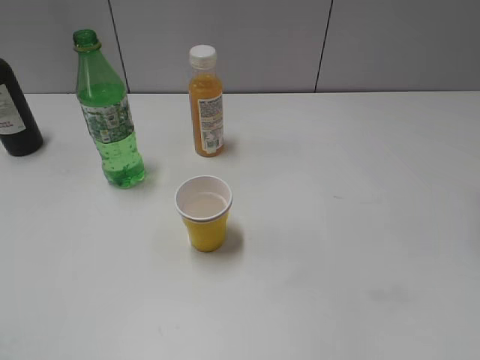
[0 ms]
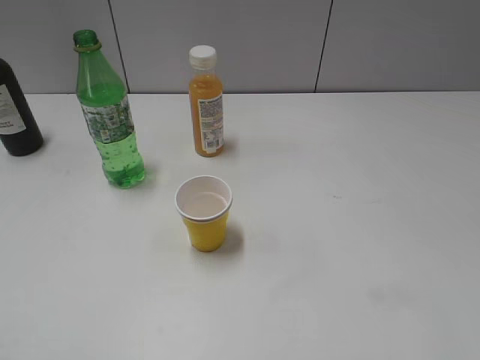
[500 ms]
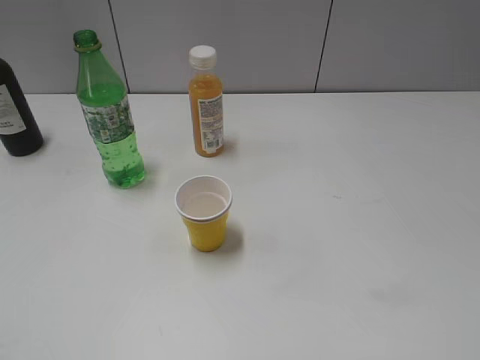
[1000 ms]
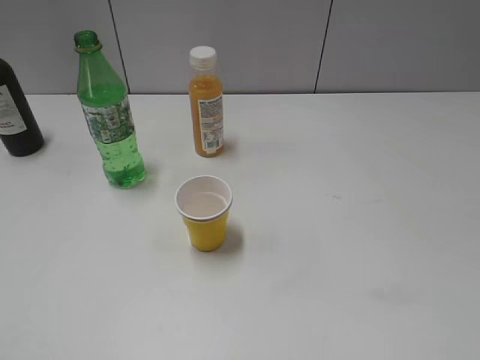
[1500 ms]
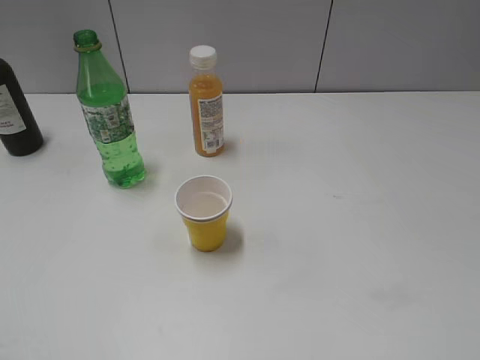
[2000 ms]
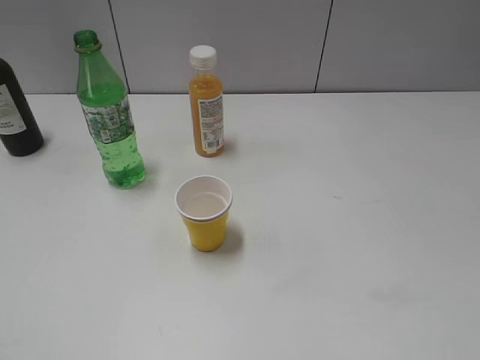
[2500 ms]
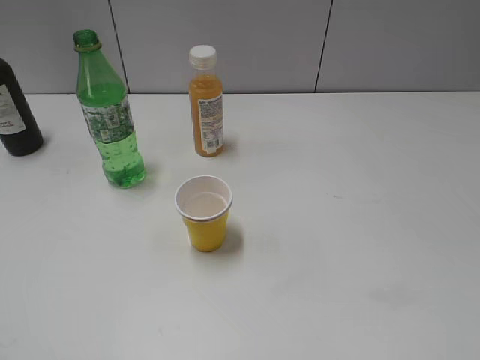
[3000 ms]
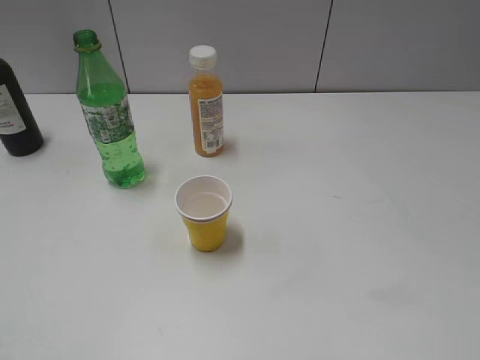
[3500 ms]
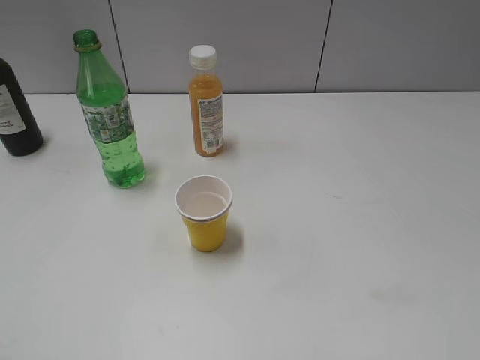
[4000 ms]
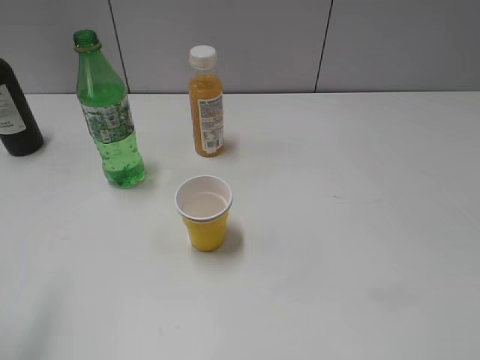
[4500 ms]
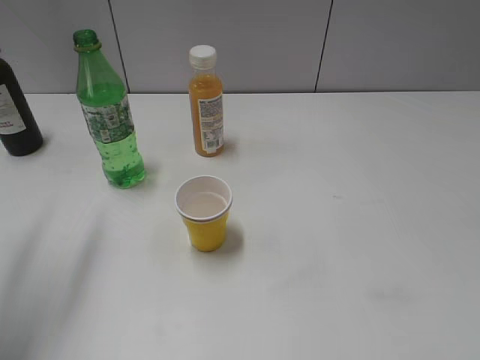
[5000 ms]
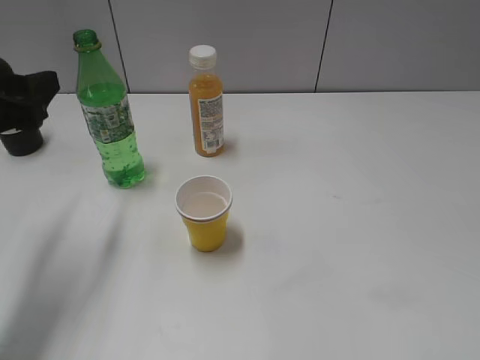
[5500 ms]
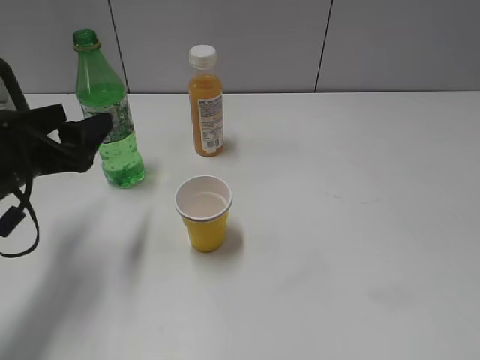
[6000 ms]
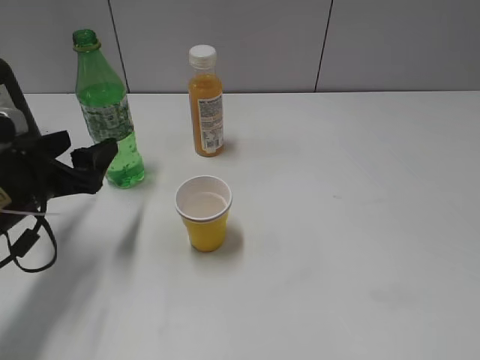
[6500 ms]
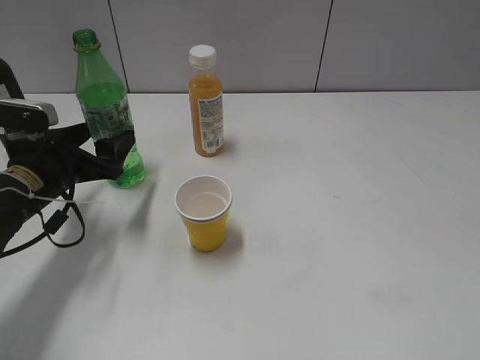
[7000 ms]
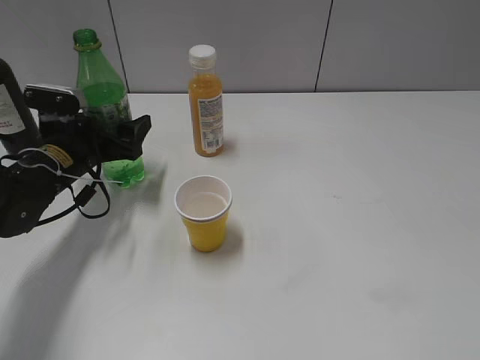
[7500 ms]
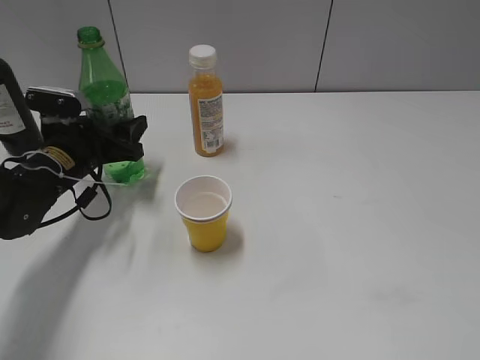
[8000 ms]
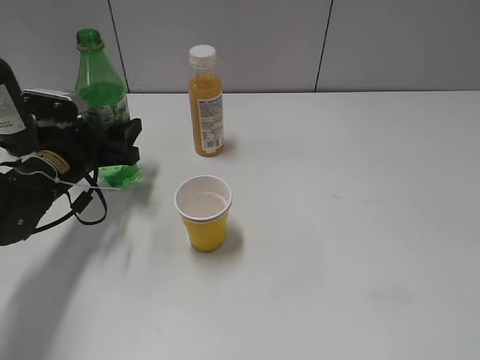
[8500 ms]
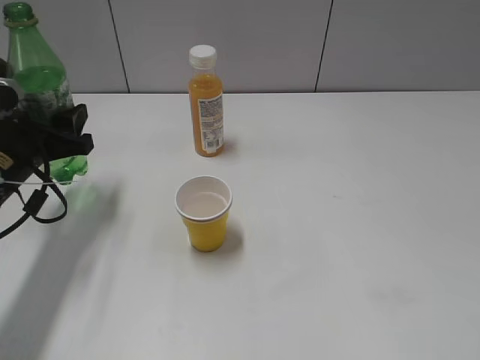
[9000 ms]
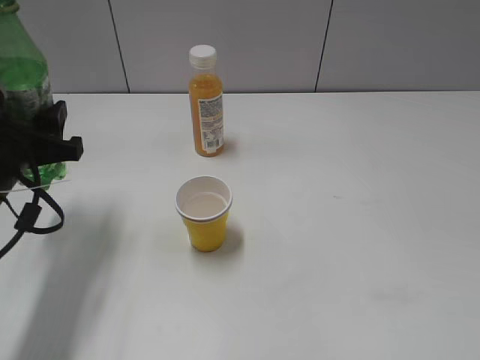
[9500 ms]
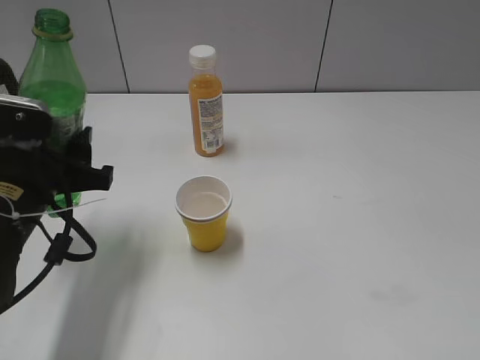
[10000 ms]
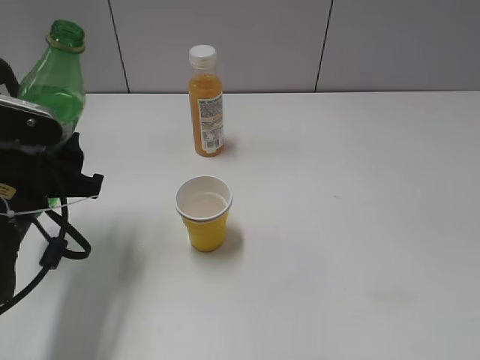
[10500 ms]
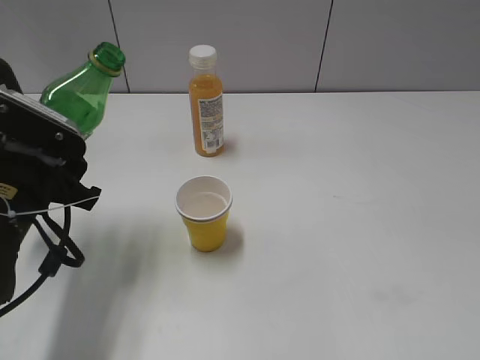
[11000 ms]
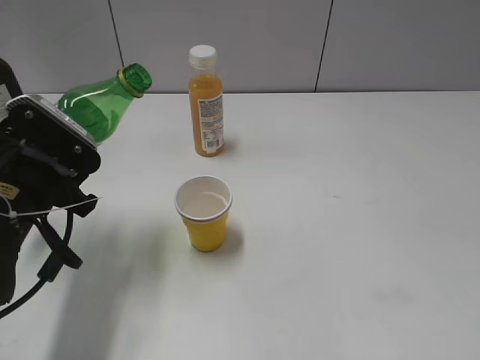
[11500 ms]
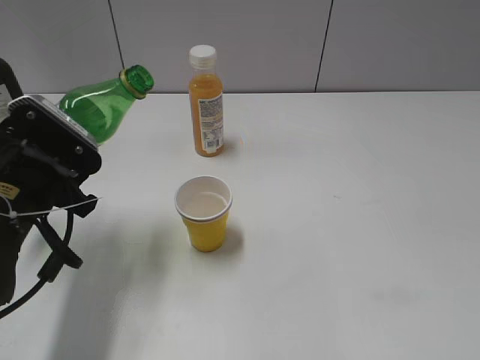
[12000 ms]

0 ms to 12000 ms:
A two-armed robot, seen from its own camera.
Step, 0 ms to 8000 ms: Grasp the bottle with sprite with left gripper.
4000 ms to 6000 ms: The left gripper is displaced forward and downward by roughly 30 cm.
6000 ms to 8000 ms: The left gripper heads forward and downward, covering some 15 cm.
8000 ms to 10000 ms: The left gripper is displaced backward and upward by some 15 cm.

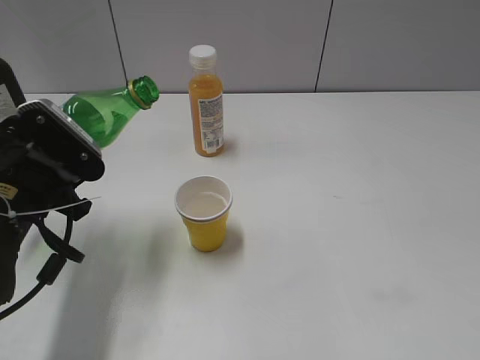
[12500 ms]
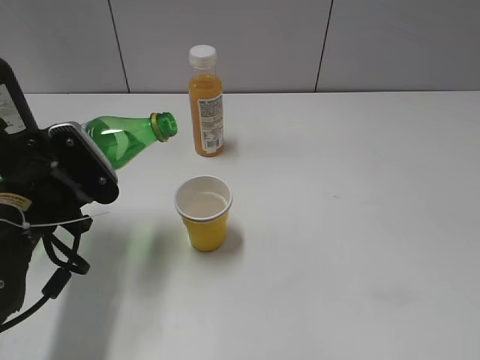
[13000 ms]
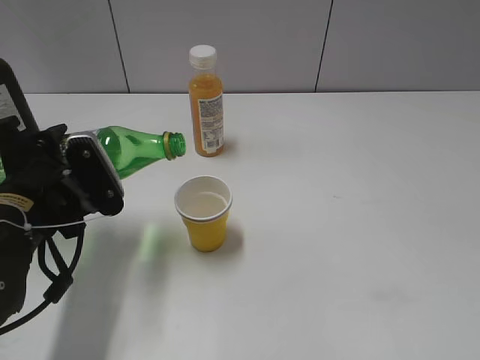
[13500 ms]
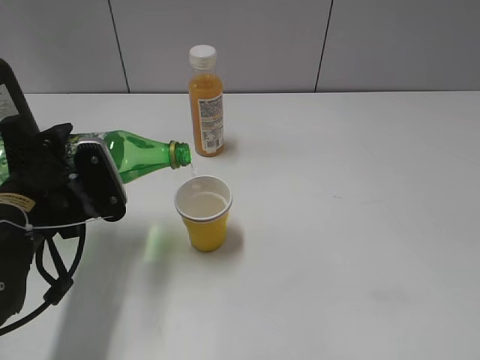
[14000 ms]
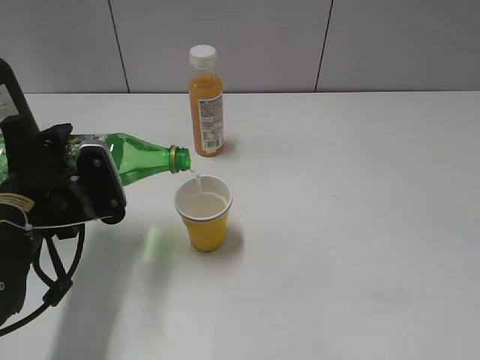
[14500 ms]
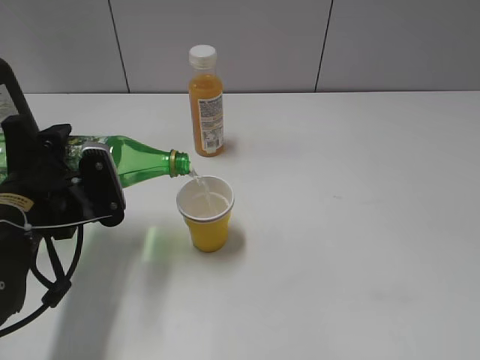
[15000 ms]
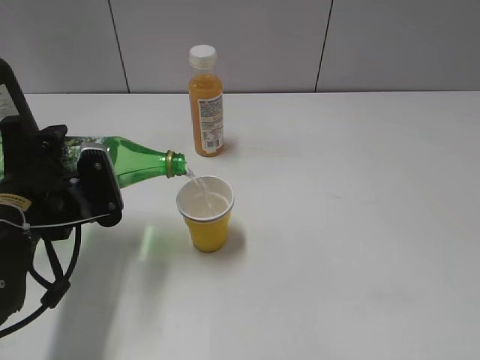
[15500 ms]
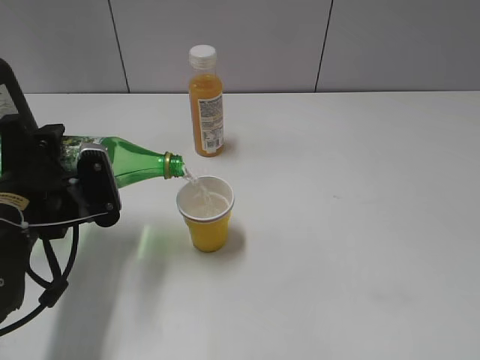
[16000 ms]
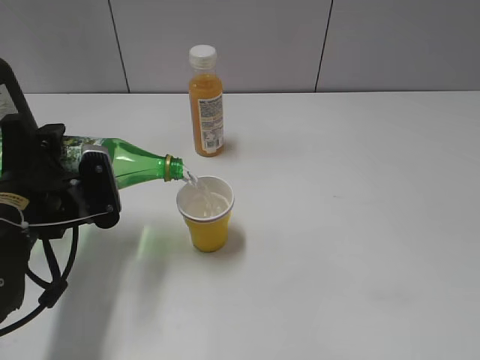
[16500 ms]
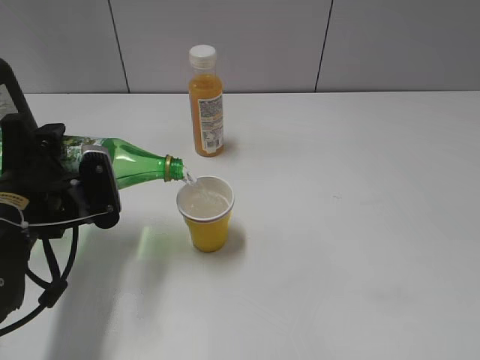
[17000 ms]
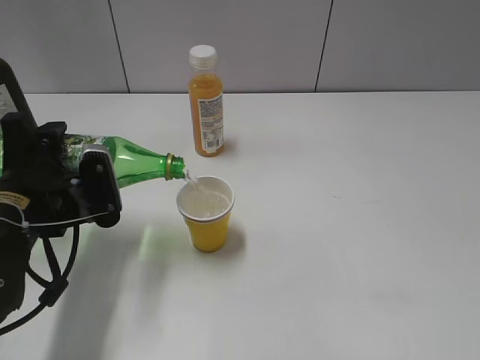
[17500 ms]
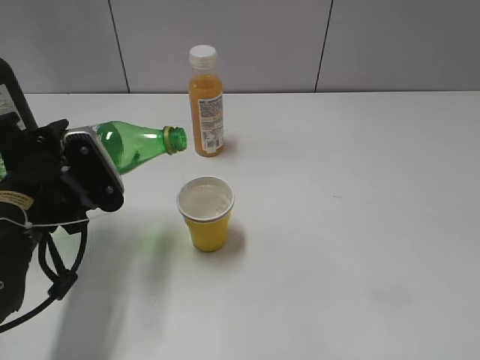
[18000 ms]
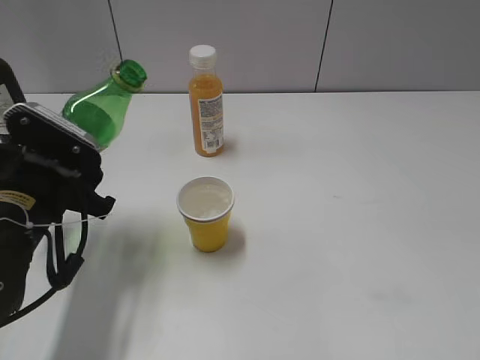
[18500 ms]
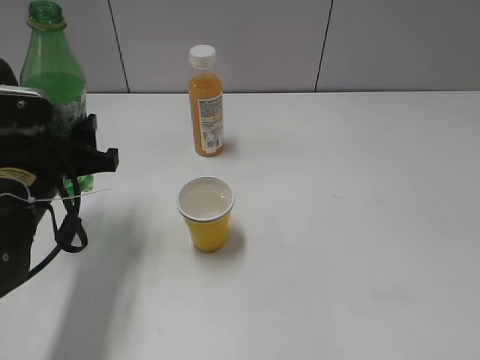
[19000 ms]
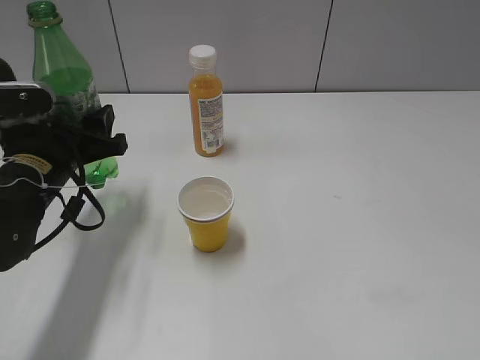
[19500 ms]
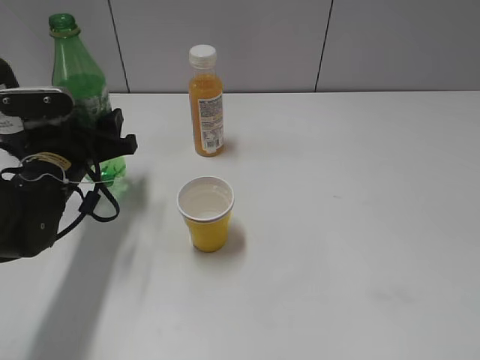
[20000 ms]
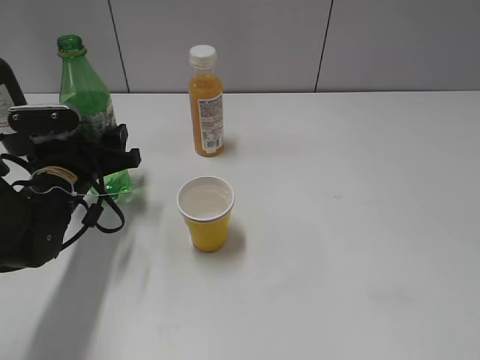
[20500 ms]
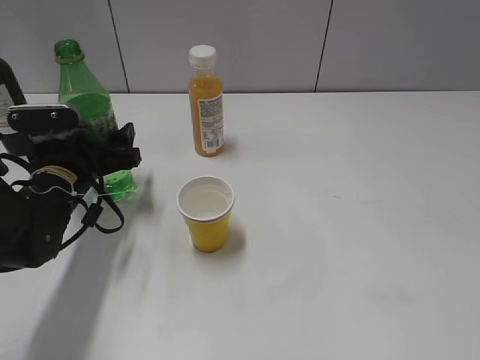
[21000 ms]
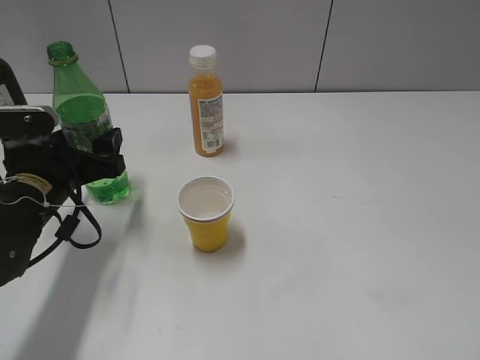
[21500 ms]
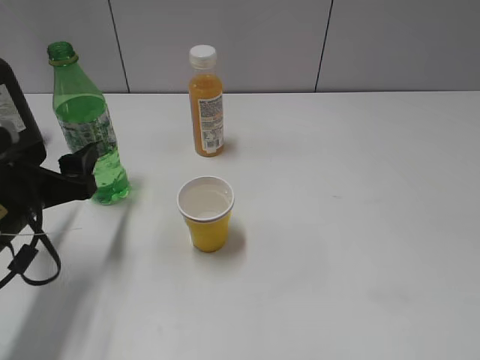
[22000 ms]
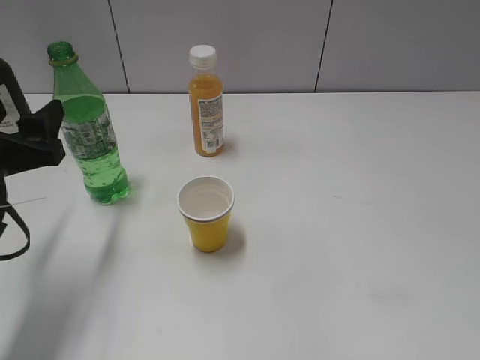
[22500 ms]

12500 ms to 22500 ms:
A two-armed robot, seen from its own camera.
Step, 12500 ms to 18000 ms: Pour the sprite from bottle to cup with left gripper.
Step, 18500 ms to 21500 ms: Place the sprite bottle on the table with left gripper.
14500 ms to 16500 ms: The grippers make only small movements.
18500 ms to 20500 ms: The left gripper shifts approximately 10 cm forward and downward.
20500 ms to 22500 ms: The left gripper heads backward and upward, covering about 15 cm, and opens.

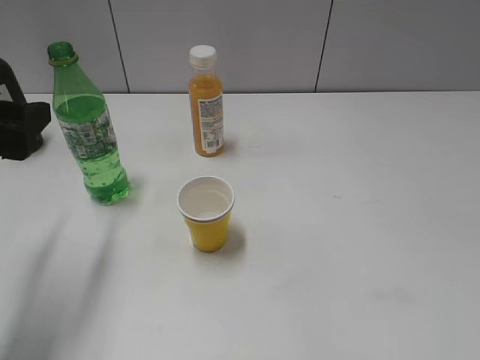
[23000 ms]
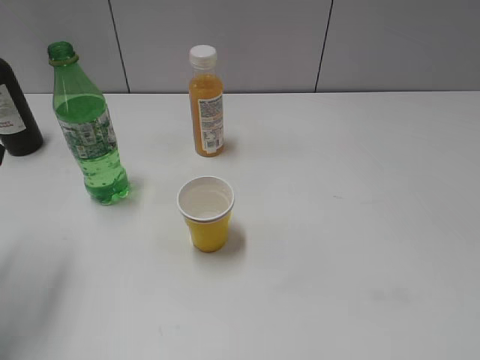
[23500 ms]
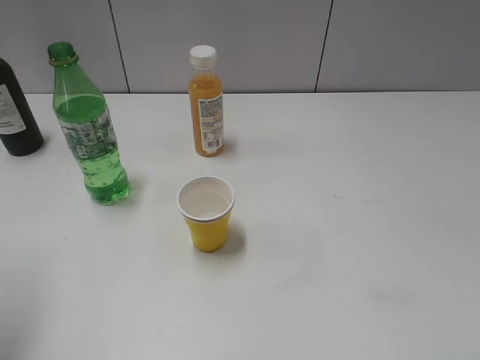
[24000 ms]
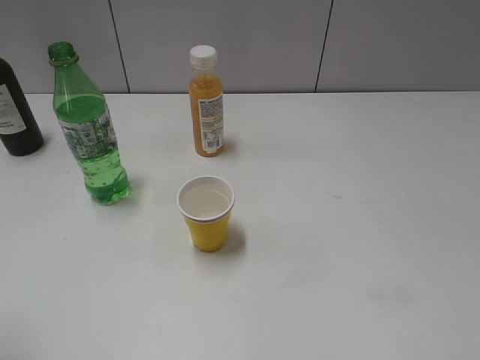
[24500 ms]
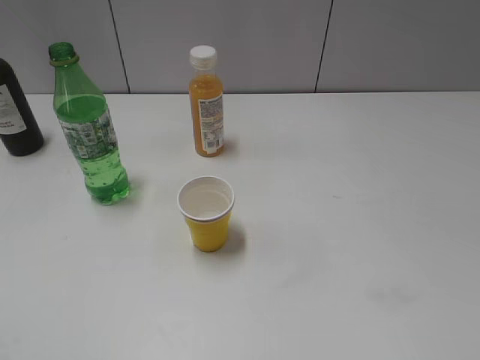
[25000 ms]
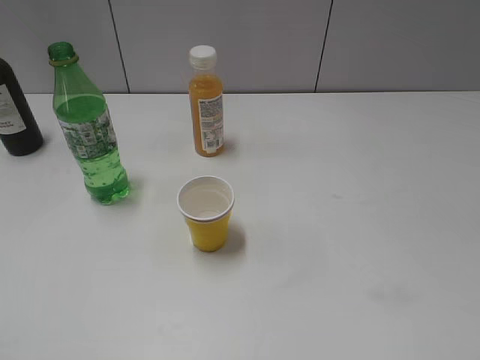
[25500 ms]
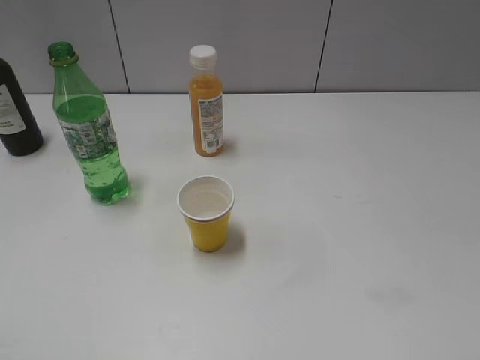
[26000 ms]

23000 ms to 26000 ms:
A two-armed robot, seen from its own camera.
23000 ms to 24500 ms: The left gripper goes about 15 cm backward and upward.

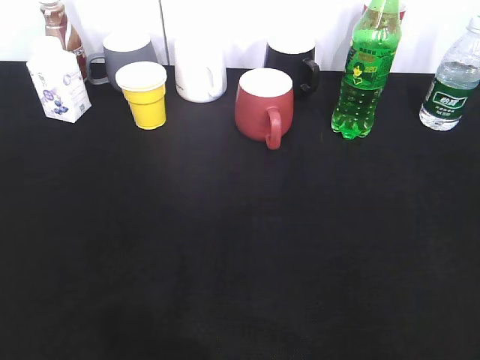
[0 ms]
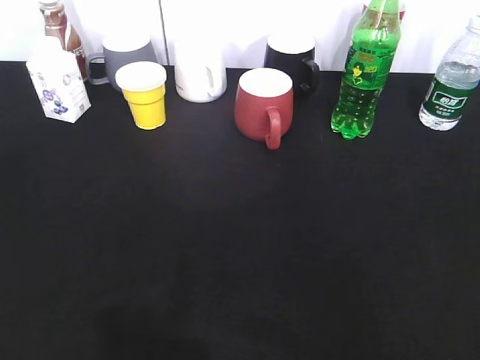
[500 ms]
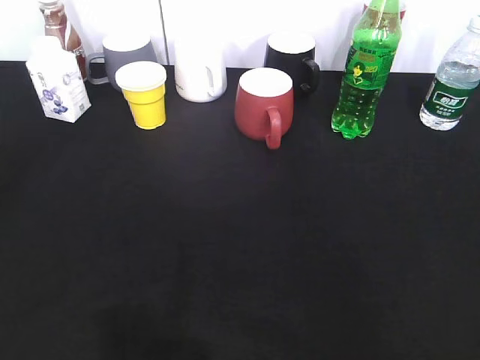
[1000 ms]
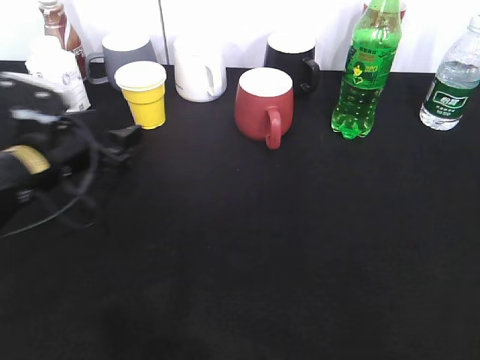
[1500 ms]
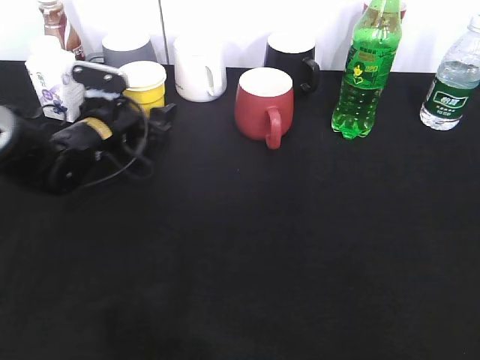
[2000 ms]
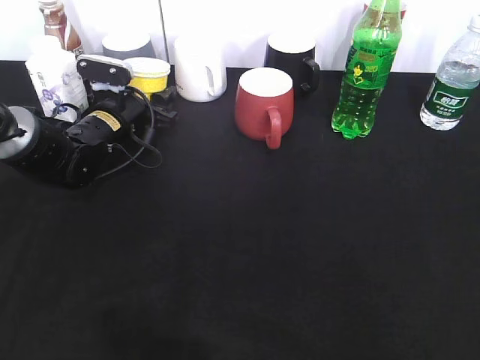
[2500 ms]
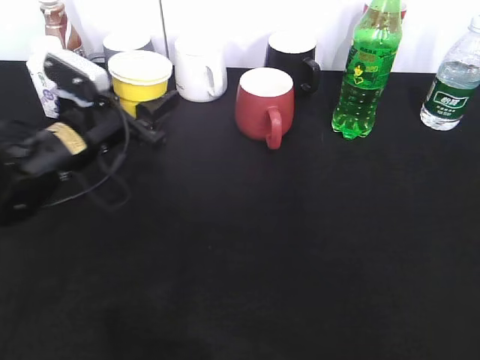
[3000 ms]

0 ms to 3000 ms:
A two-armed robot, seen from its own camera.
Step, 0 ms to 2000 ms: Grasp the yellow paper cup with left gripper.
0 ms to 1500 ms: The left gripper goes some 35 cm forward and downward.
1500 ms to 3000 ms: The left gripper reaches approximately 10 cm forward, then returns, and closes its fingers.
